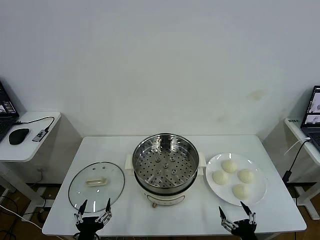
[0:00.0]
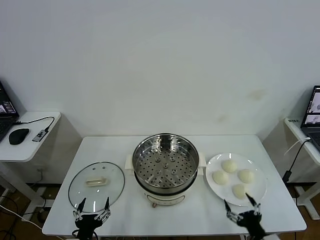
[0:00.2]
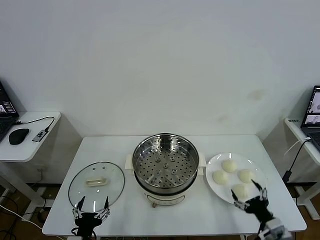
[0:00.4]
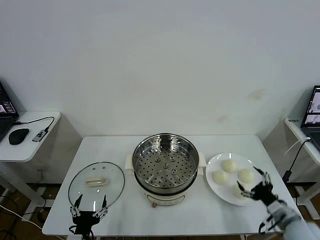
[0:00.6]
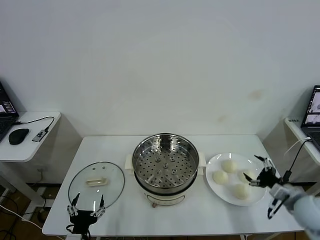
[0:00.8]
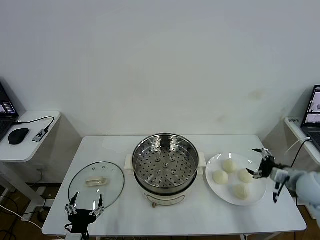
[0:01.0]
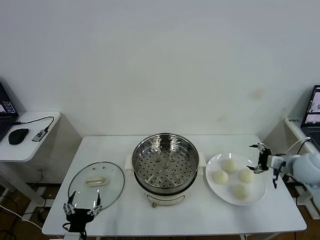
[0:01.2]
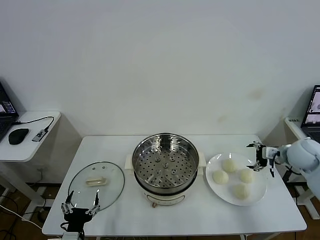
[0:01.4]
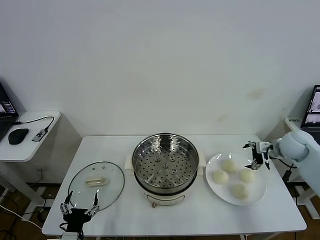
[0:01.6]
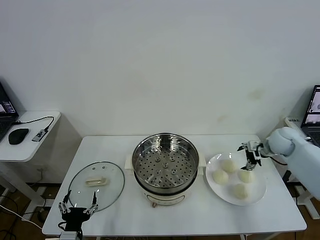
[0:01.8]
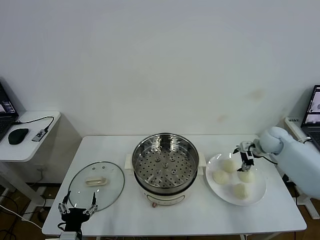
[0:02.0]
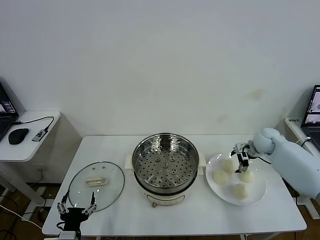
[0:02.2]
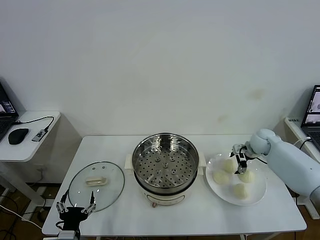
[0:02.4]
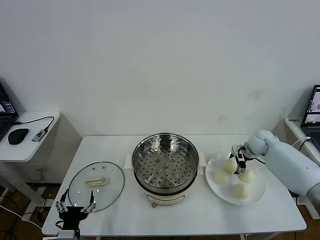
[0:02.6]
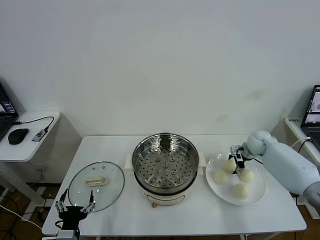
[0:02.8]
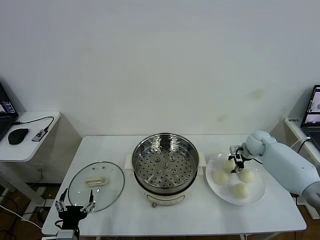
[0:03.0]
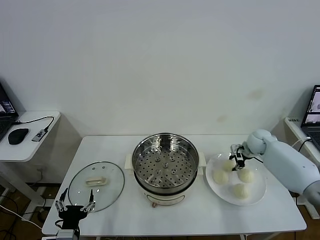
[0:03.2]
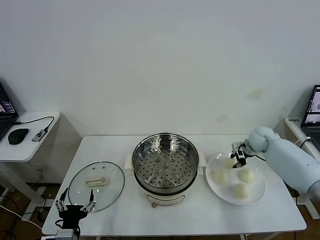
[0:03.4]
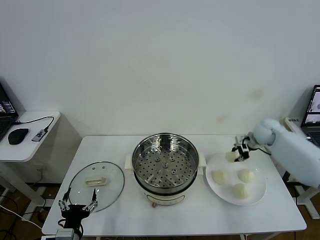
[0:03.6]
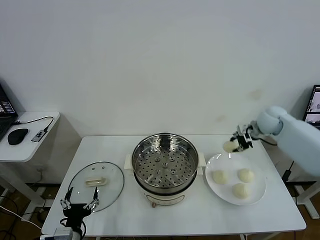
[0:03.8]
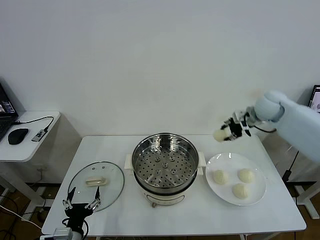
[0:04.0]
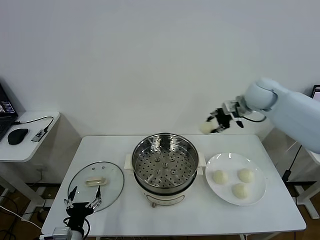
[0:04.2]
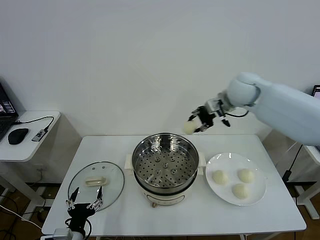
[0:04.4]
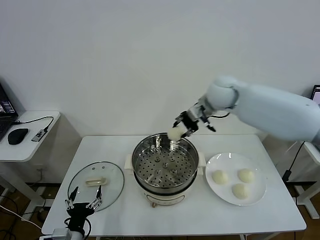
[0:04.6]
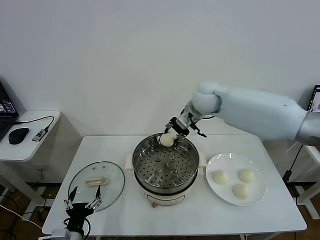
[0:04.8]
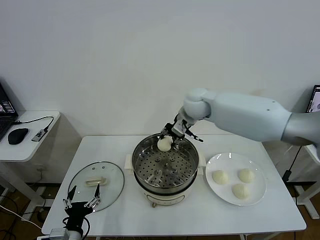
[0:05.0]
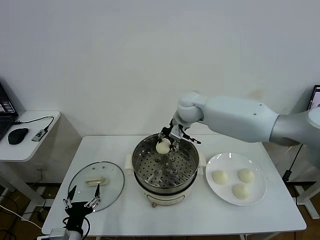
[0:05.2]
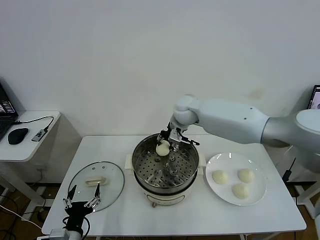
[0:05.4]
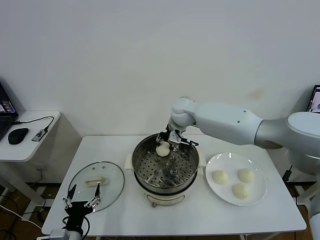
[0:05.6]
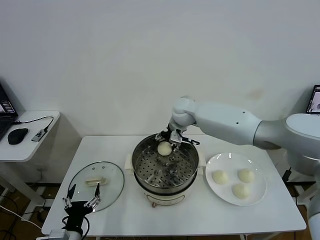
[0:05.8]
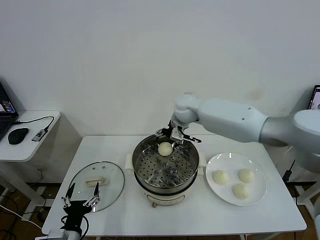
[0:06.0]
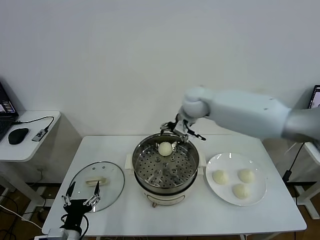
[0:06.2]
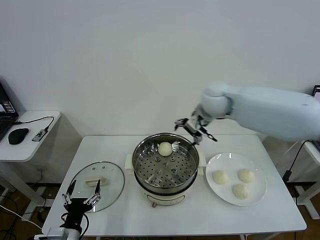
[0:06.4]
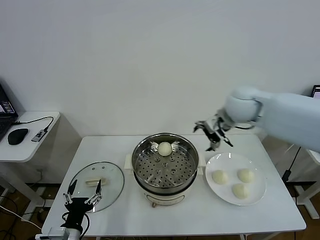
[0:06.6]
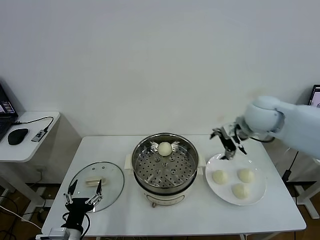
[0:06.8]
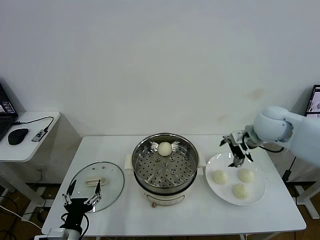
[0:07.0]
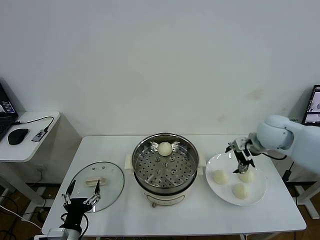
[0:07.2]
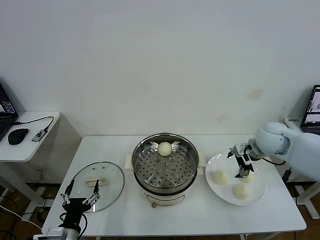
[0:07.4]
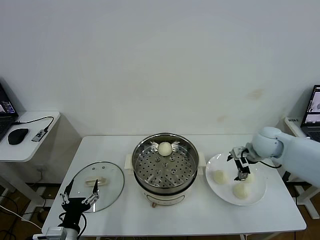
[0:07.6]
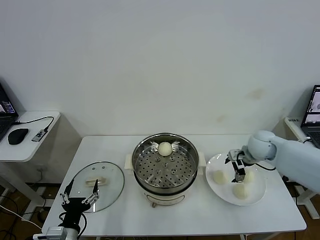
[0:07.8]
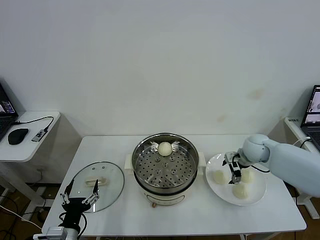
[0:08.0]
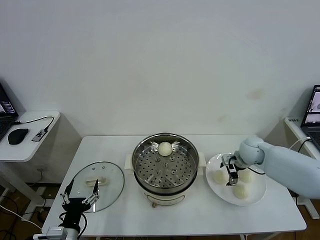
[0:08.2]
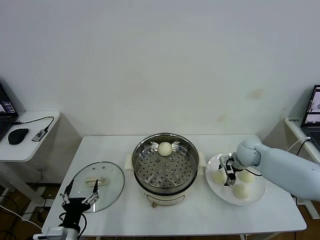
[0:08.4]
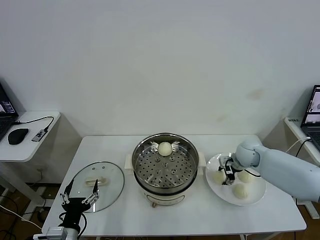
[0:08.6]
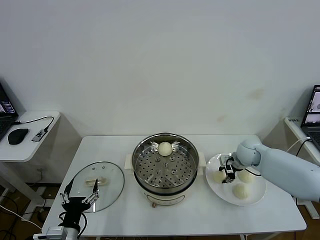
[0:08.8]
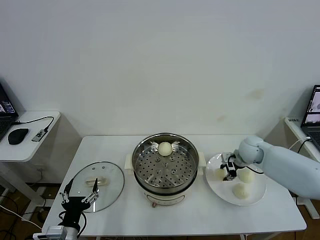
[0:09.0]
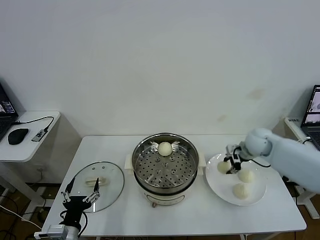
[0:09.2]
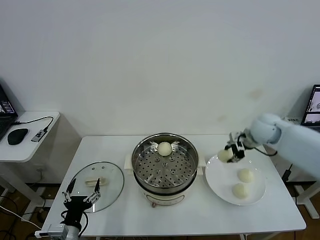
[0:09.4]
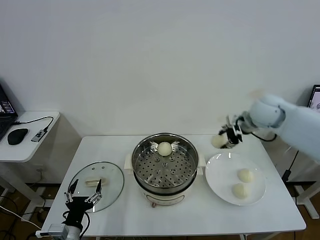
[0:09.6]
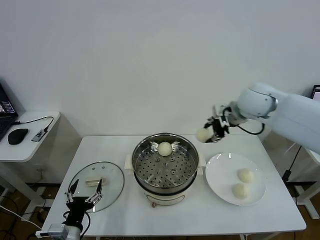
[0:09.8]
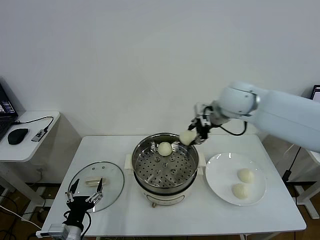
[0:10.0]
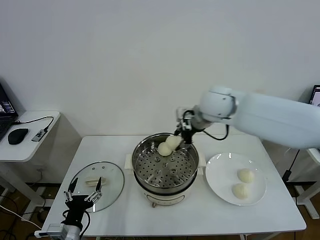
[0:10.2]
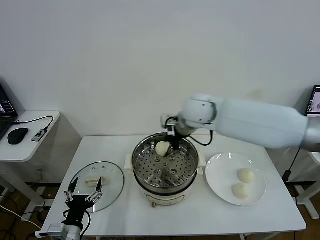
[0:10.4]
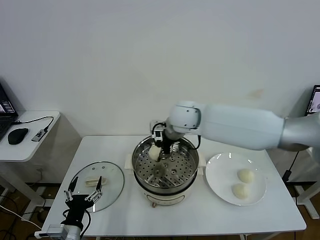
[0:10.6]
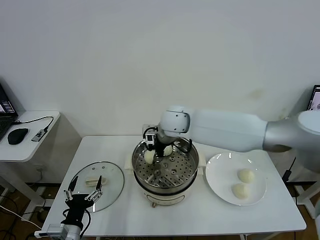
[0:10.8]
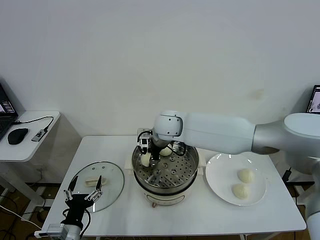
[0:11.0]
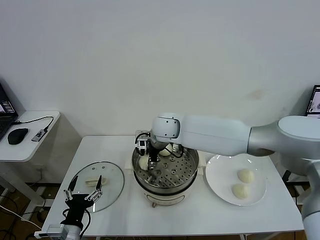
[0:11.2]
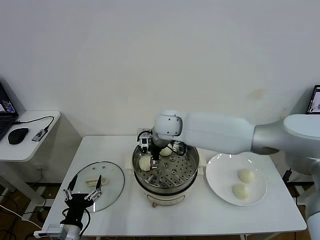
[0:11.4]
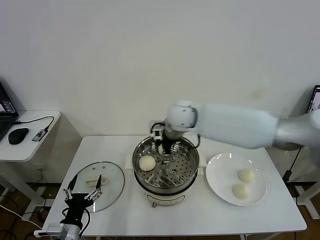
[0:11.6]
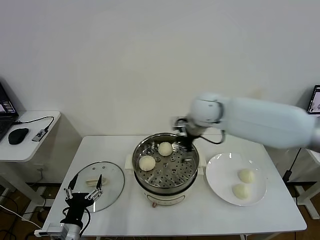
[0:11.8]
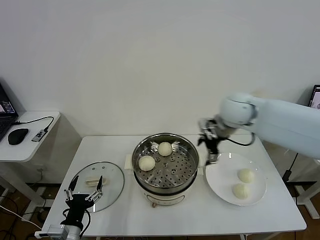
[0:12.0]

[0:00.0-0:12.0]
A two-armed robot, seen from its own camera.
Task of the whole recording: take steamed baozi put them in steamer then cover it.
Step, 0.0 to 3.4 s: Grasp the baozi in the plate with right gripper.
Step, 3.6 to 5.8 s: Place the baozi on the steamer with right gripper.
Step, 6.2 to 9.0 s: Grasp the baozi in the plate with right gripper.
Step, 9.2 to 11.4 s: Place the baozi on the steamer with right gripper.
1.6 to 3.0 s: The right gripper moves downward and forward, approximately 10 cm, and closes.
3.0 to 4.4 s: The right gripper shifts roughly 30 cm upward and to the left.
4.4 to 6.0 s: The right gripper heads to the left and downward, covering roughly 10 cm, and opens.
6.0 to 7.6 s: The right gripper heads to the right and downward, covering about 25 cm.
7.6 to 9.0 s: The right gripper closes its fingers.
9.0 to 10.4 s: The right gripper travels to the left and upward by approximately 30 cm.
10.4 to 12.0 s: The right gripper moves to the right, approximately 15 cm, and opens.

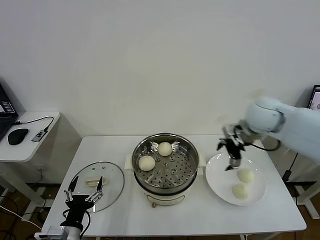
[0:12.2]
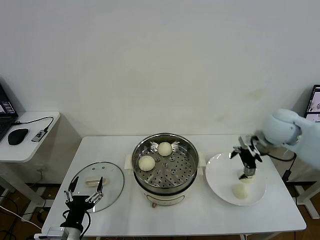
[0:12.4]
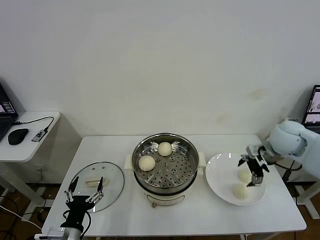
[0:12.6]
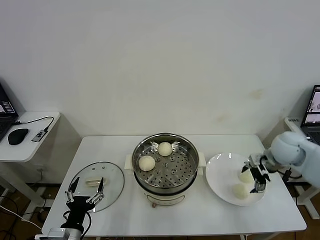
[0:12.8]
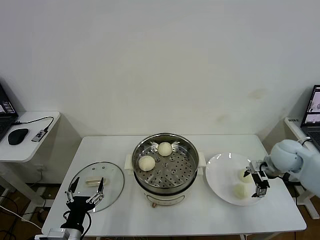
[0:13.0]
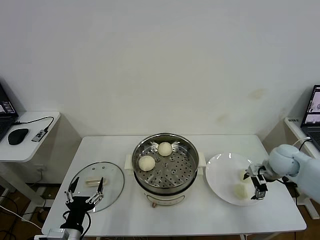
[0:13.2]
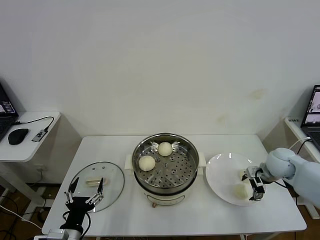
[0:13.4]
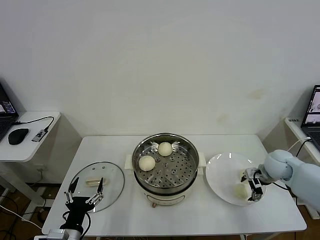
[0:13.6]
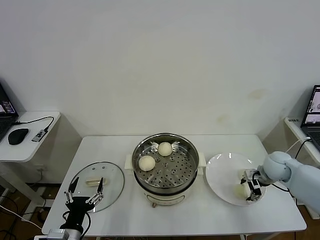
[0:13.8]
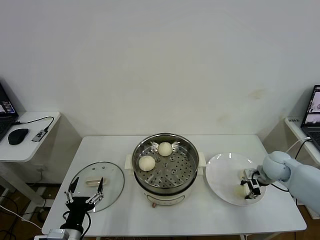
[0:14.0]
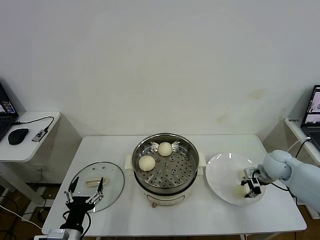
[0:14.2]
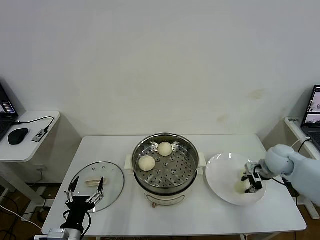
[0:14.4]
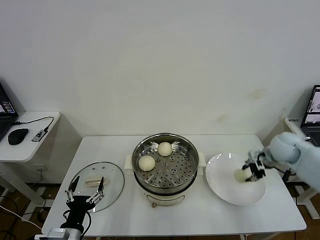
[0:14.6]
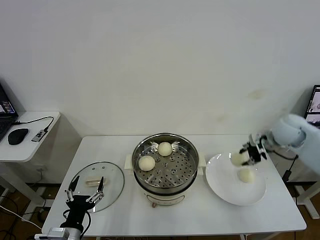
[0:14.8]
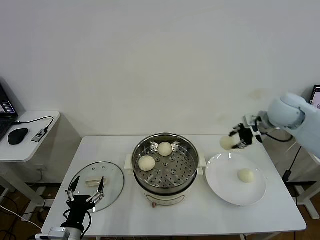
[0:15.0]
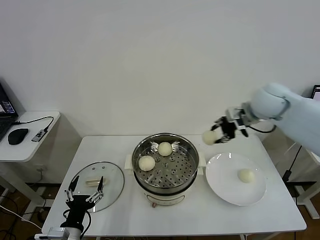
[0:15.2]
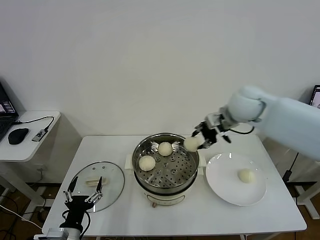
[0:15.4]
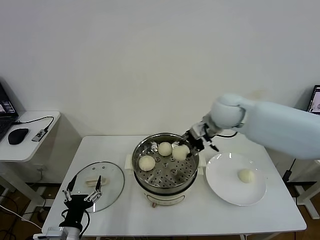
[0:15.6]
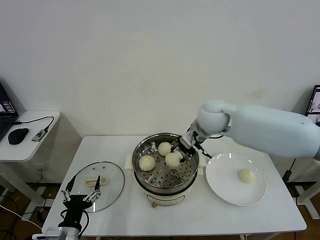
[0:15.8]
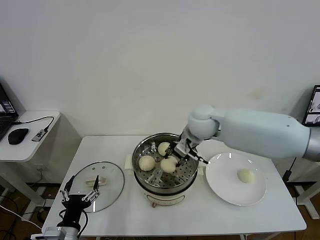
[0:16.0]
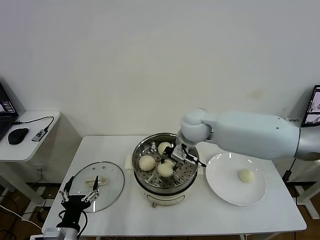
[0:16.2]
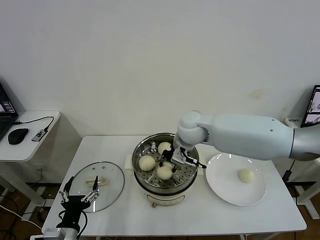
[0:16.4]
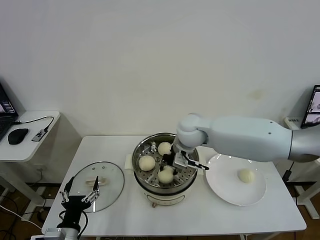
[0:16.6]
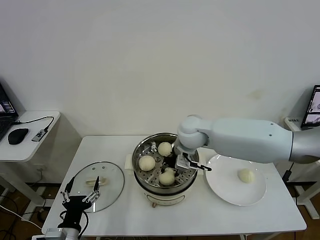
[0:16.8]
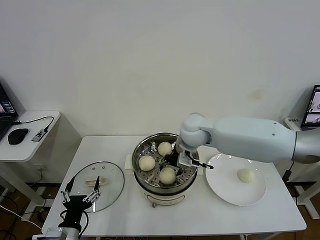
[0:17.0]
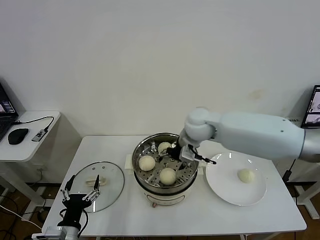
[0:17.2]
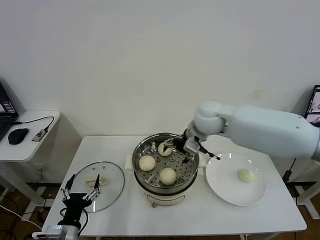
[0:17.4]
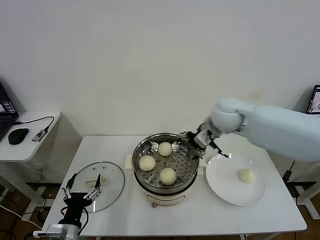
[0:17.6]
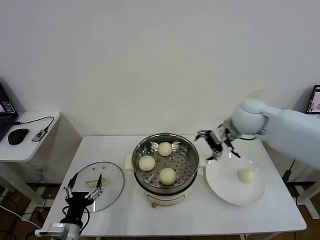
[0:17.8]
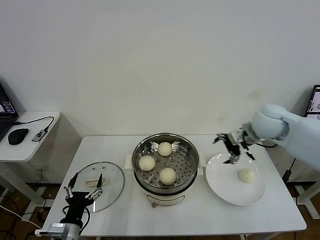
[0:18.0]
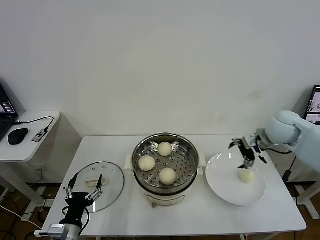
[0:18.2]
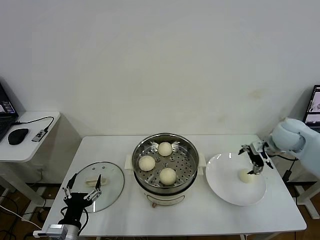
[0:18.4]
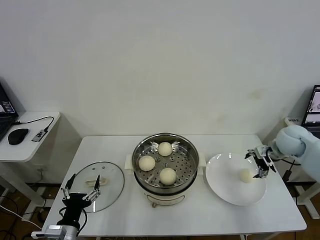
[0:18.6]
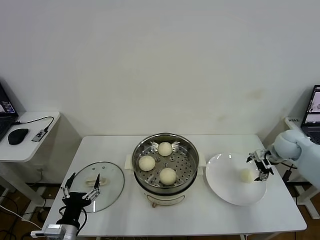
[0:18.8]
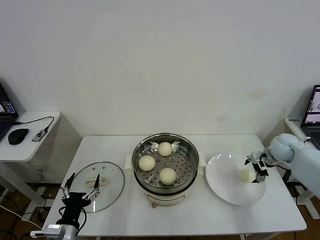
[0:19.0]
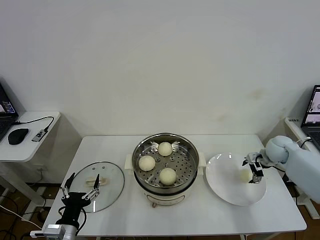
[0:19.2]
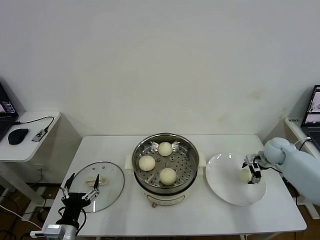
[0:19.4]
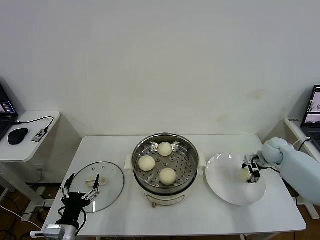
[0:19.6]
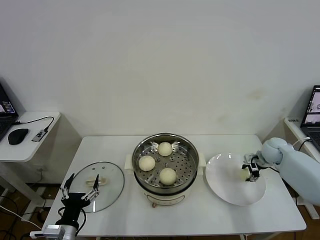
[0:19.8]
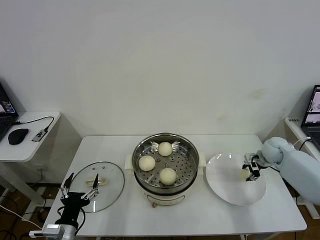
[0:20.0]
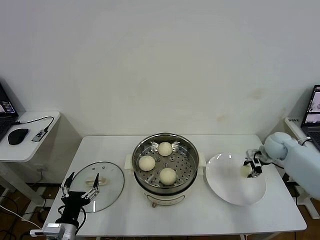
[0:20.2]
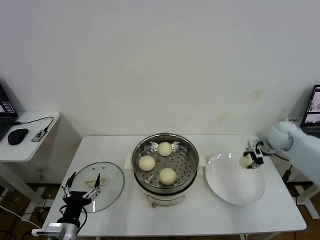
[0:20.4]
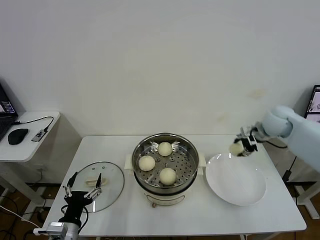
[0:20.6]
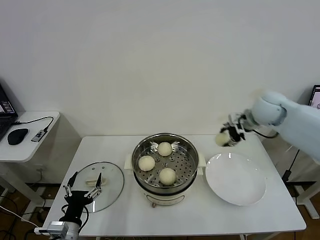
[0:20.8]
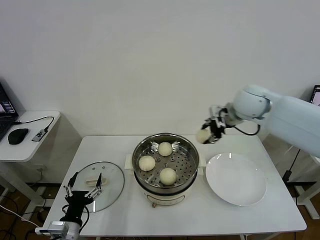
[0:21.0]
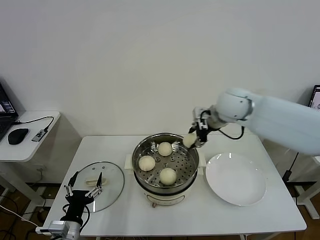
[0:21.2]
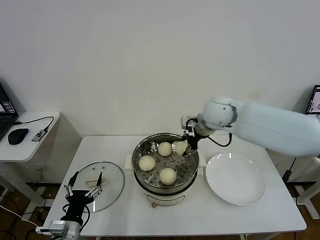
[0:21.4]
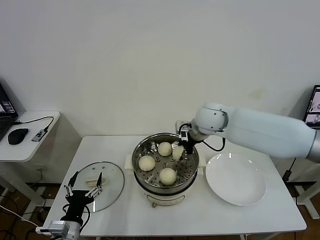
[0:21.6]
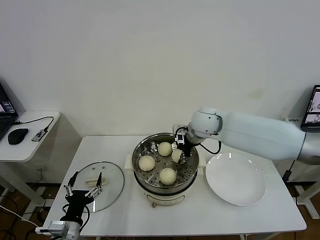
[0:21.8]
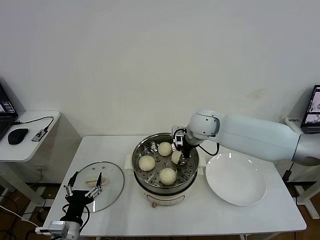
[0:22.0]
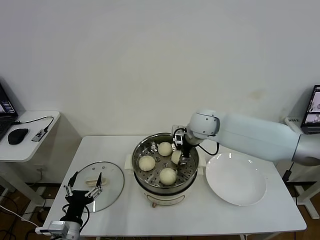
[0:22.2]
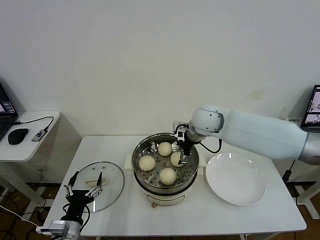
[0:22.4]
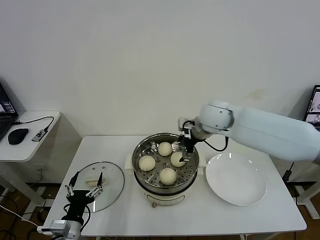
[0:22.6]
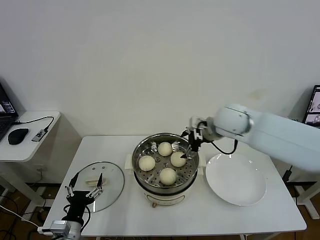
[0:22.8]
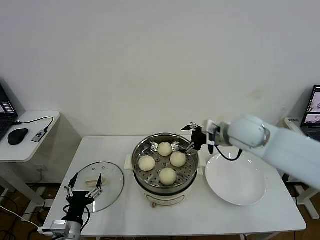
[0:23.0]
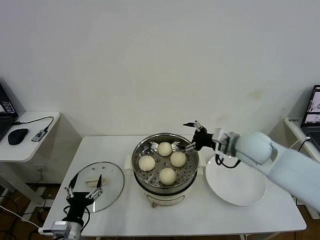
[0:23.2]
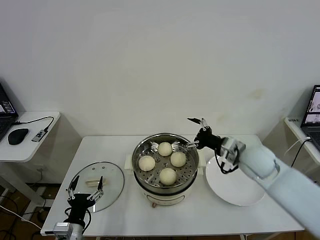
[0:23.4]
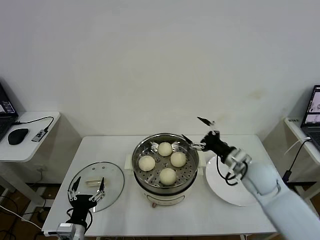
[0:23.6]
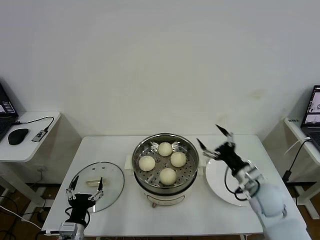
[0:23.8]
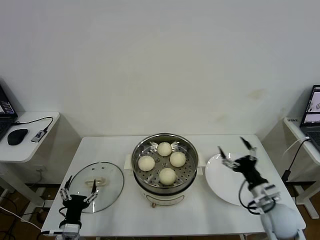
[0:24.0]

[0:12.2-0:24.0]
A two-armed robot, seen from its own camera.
Task of the whole recording: take steamed baozi put them in steamer then cover it.
Step, 12.2 to 14.4 s: Grasp the baozi in the plate with right gripper.
Step, 14.6 to 17.2 s: Place the baozi on the steamer with right gripper.
Step, 17.4 to 20.0 s: Grasp the baozi in the plate with right gripper.
Step, 20.2 to 22.6 s: Place the baozi on the steamer with right gripper.
12.2 to 13.6 s: The right gripper goes roughly 20 cm downward and to the right.
13.6 to 15.2 s: The right gripper goes some 25 cm upward and to the left, and closes.
15.2 to 16.6 s: The right gripper heads to the left and downward, covering roughly 20 cm.
16.6 to 18.2 s: The right gripper heads to the right, covering roughly 30 cm, and opens.
18.2 to 19.6 s: The right gripper heads downward, covering approximately 15 cm, and closes up.
19.6 to 21.0 s: The right gripper shifts approximately 30 cm upward and to the left.
21.0 to 22.6 s: The right gripper shifts roughly 10 cm to the left, and opens.
22.6 to 24.0 s: The right gripper goes approximately 35 cm backward, downward and to the right.
